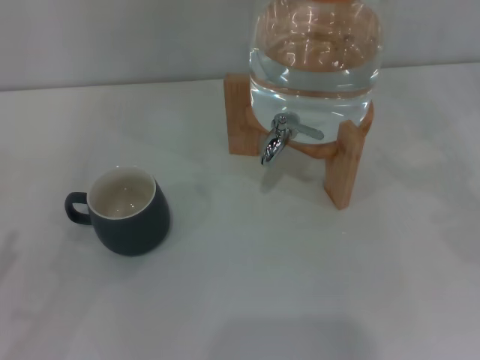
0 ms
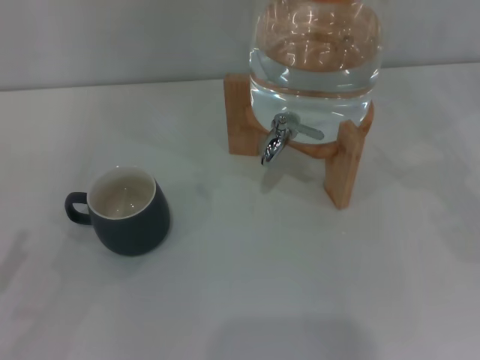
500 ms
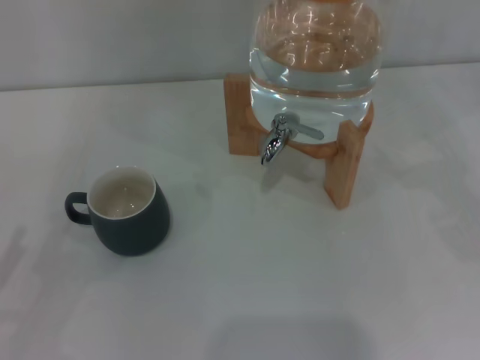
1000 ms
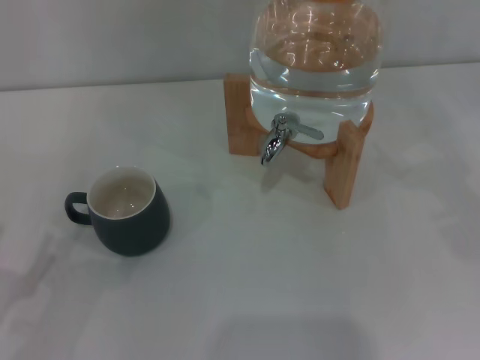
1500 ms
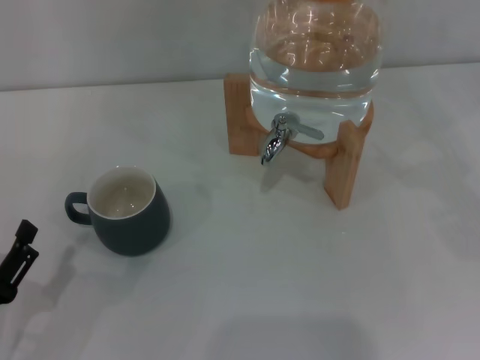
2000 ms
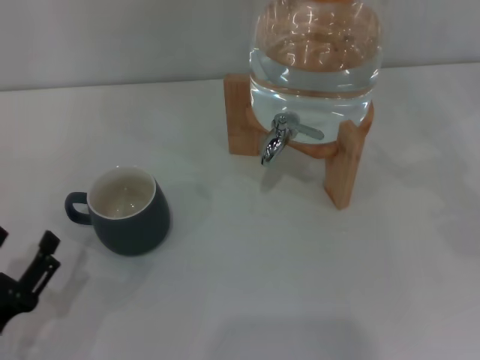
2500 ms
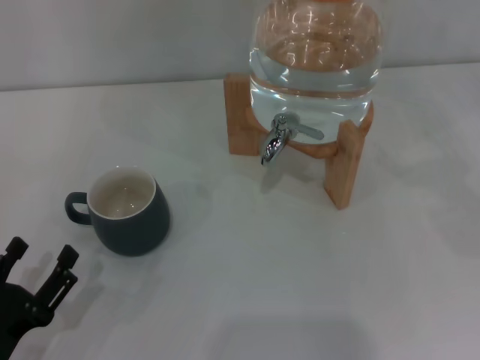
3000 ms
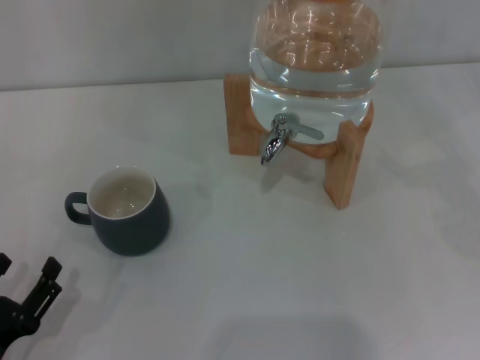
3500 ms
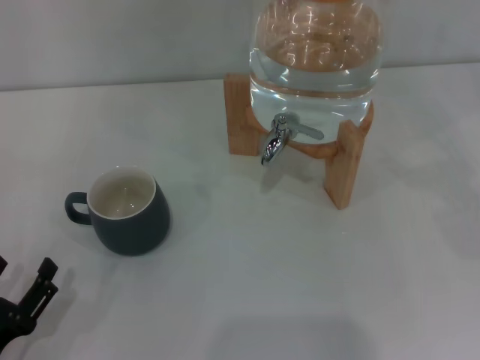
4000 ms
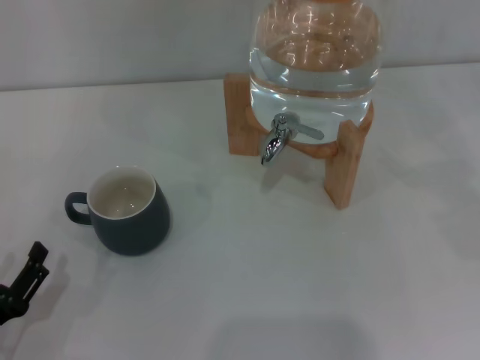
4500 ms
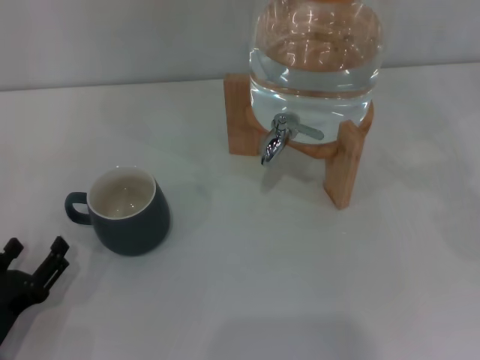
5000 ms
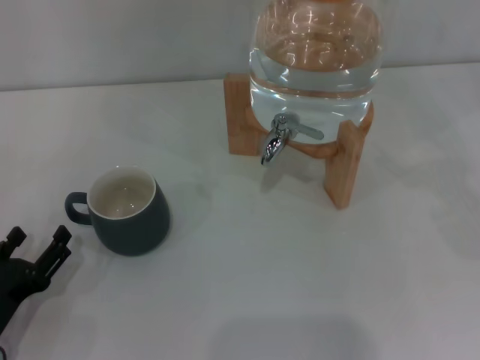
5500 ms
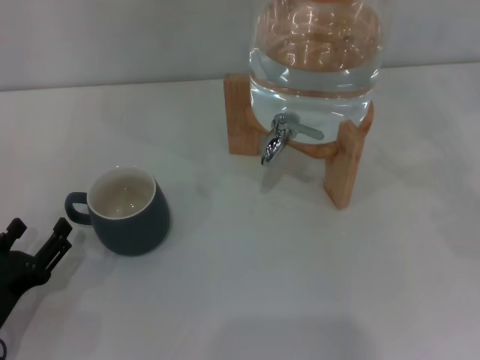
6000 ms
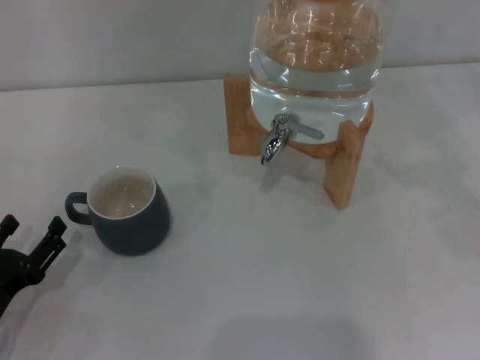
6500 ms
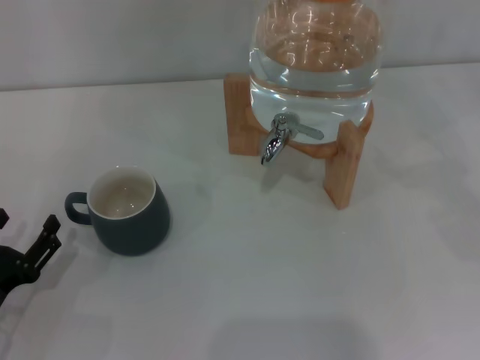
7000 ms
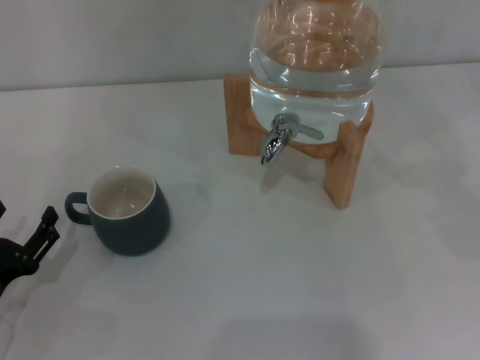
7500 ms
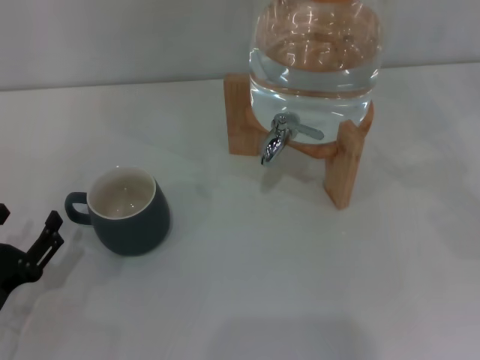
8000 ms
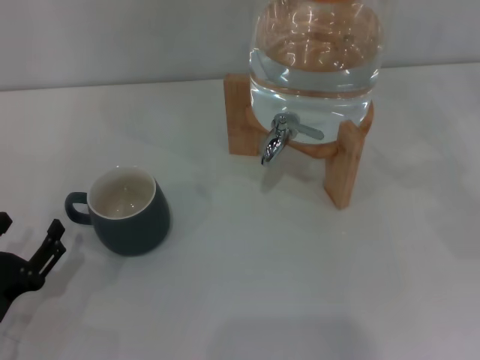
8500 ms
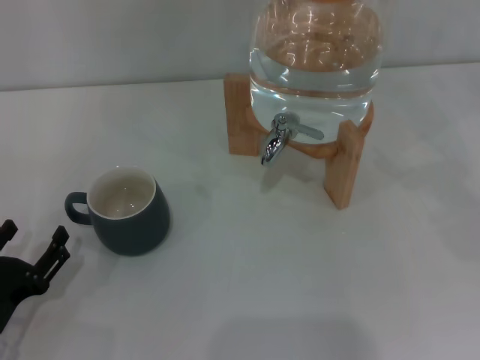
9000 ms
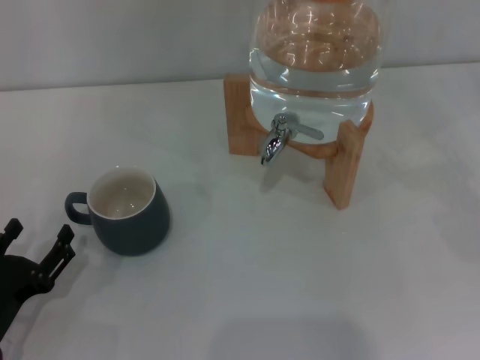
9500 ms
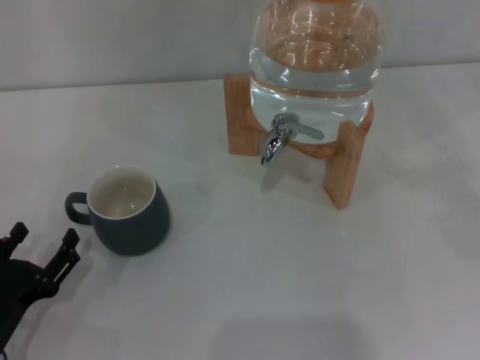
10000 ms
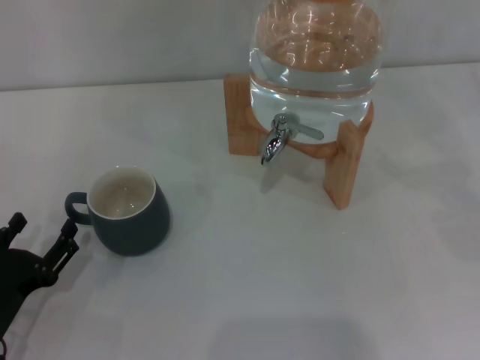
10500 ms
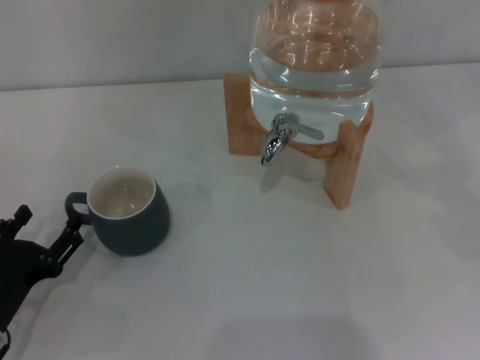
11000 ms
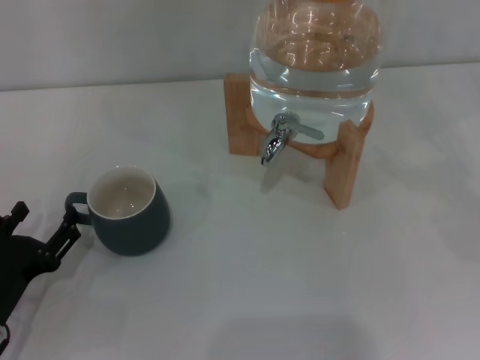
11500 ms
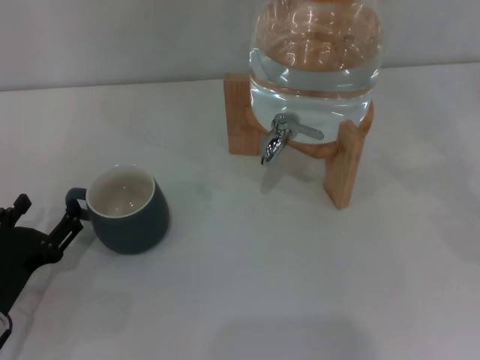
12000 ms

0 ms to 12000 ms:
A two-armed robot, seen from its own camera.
Task of the whole recording: the left gripper pick up the black cup and place it horizontally under the faucet, the right gripper turn on the faucet to fill the cup, and then turn off the faucet.
0 ms to 2000 ms: The left gripper shifts approximately 10 cm to the right and downward.
2000 ms to 4000 ms: The grippers make only small movements.
4000 ms to 6000 ms: The left gripper is displaced forward by some 5 cm.
6000 ms to 12000 ms: There are only small adjustments of the grippers.

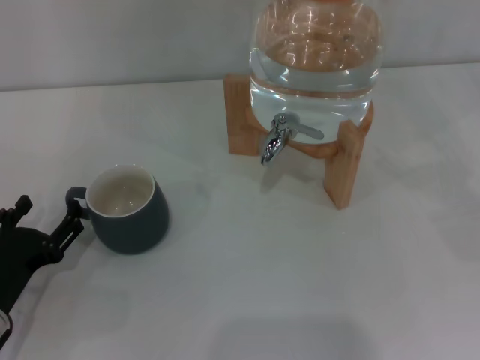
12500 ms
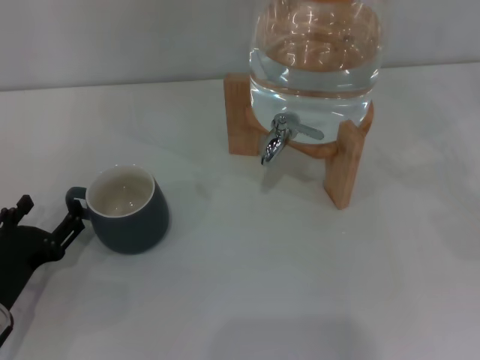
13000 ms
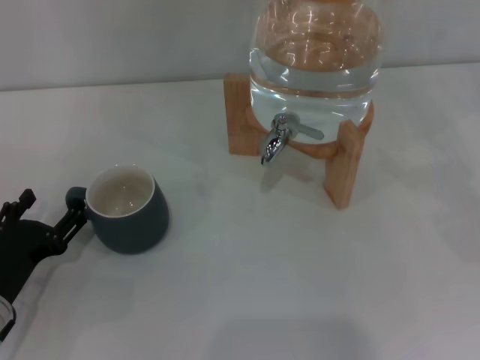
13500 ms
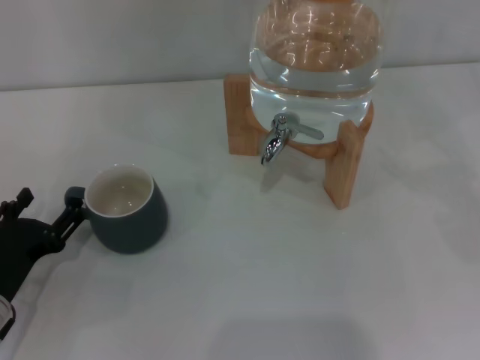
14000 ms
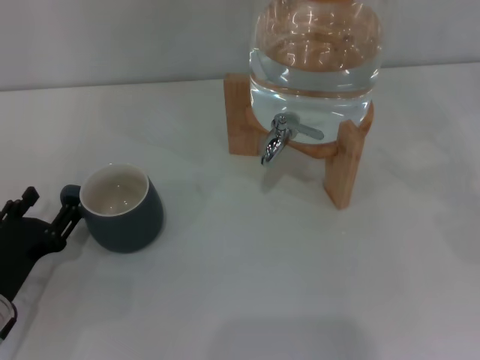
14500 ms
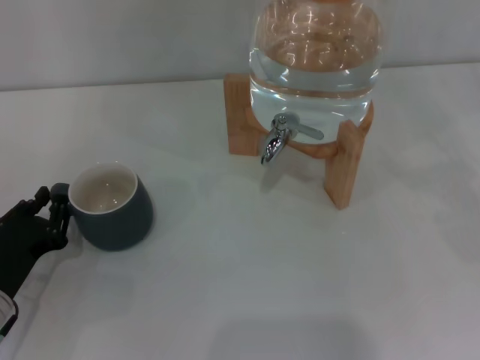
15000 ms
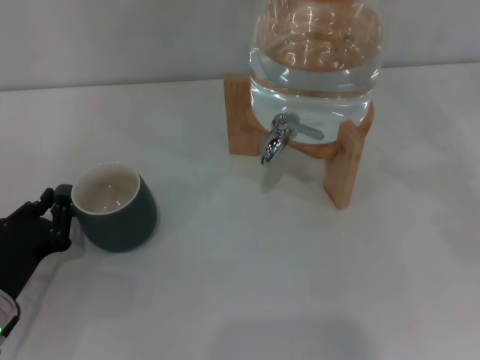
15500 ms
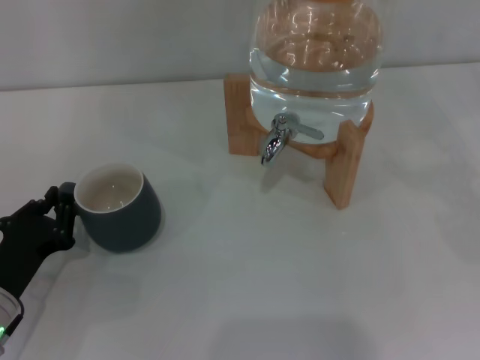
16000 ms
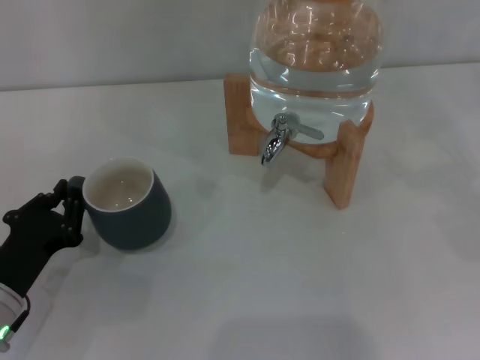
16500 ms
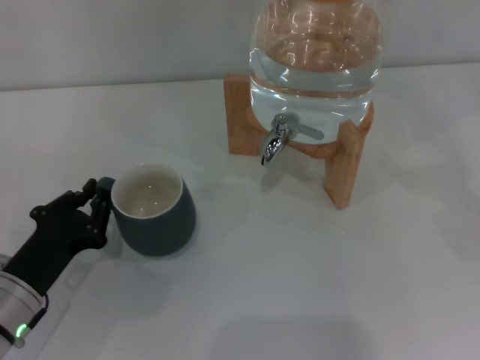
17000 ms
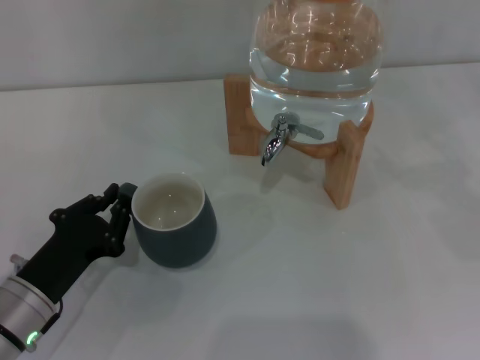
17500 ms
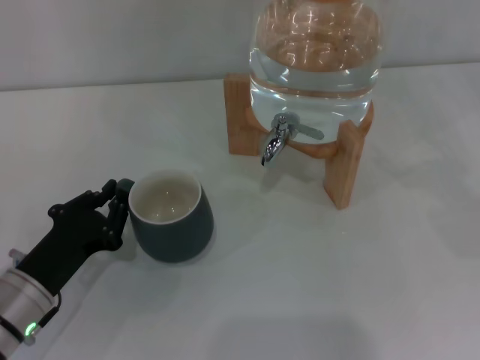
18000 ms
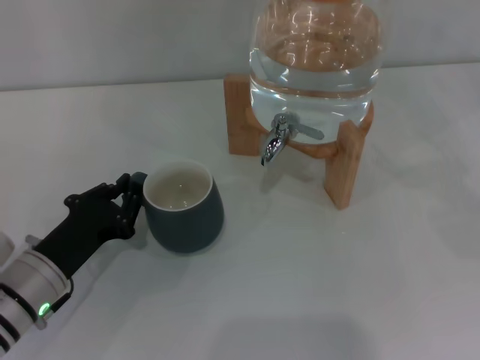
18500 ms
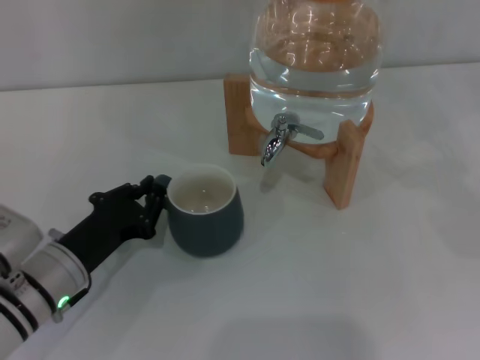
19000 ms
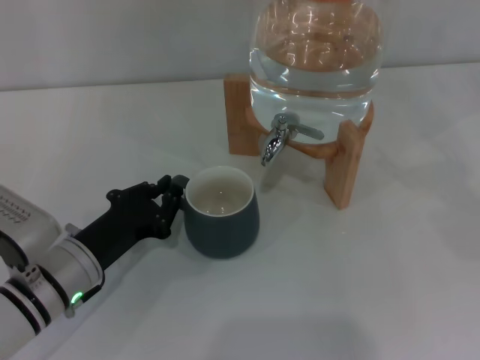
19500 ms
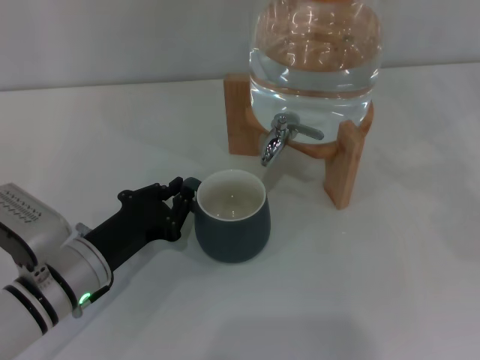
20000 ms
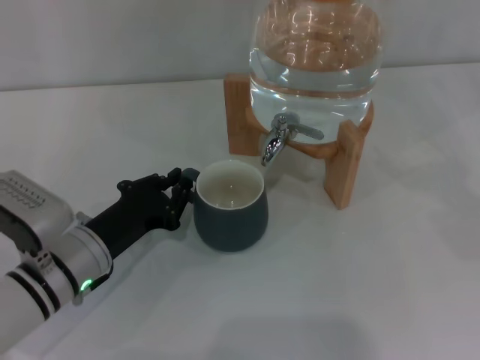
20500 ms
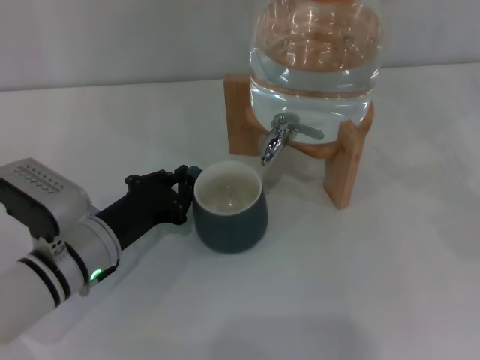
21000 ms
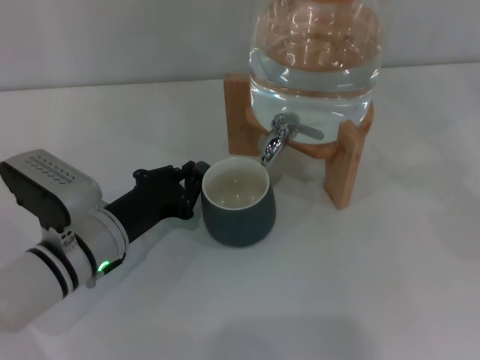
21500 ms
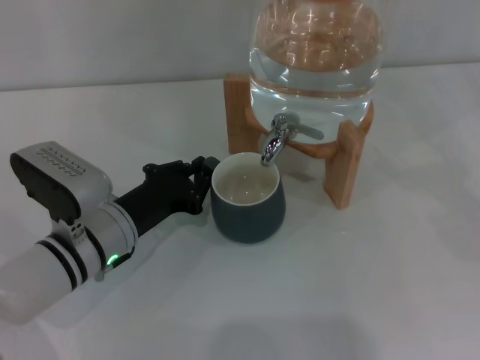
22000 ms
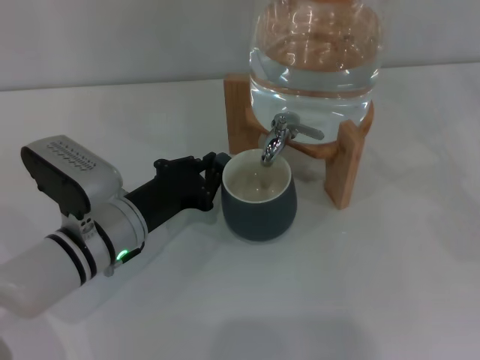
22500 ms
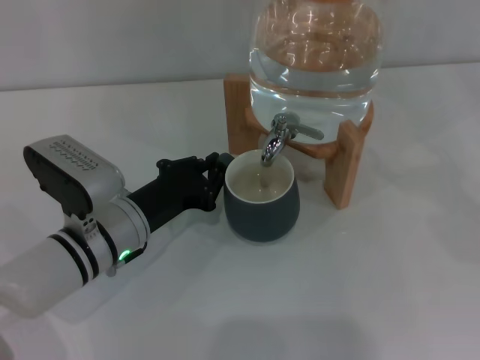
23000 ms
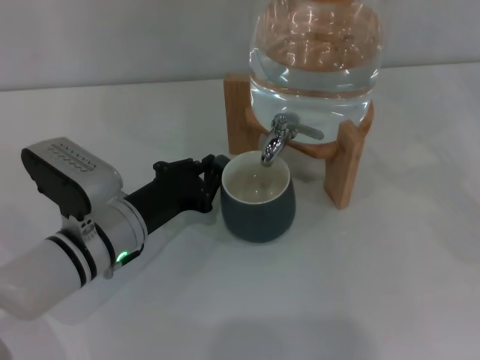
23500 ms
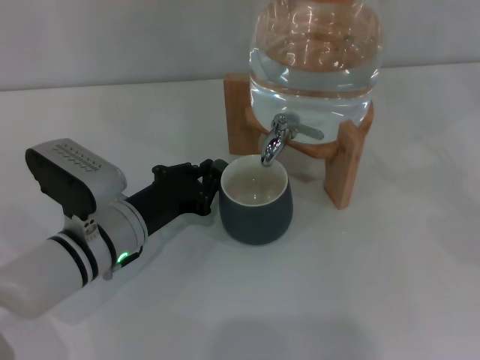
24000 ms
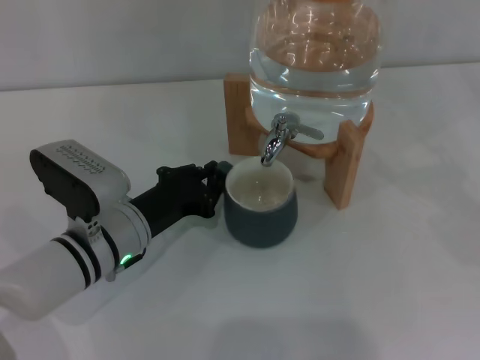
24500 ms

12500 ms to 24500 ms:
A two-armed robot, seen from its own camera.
Task of the whole recording: the left gripper pick up the black cup and place it horizontally under the faucet, the right gripper turn on the faucet to fill the cup, and then turn off the faucet.
12500 ms to 14500 ms: The two grippers keep their place.
14500 ms to 16500 ms: The left gripper closes its fingers.
16500 ms to 18500 ms: The grippers stay close to where they were, moving slightly.
18500 ms to 20500 ms: The grippers move only a little.
20500 ms to 22500 ms: The grippers move only a little.
22500 ms to 24500 ms: The two grippers keep their place.

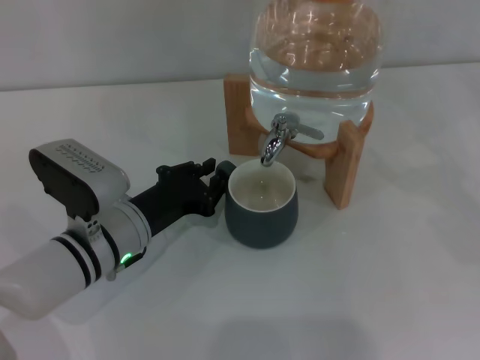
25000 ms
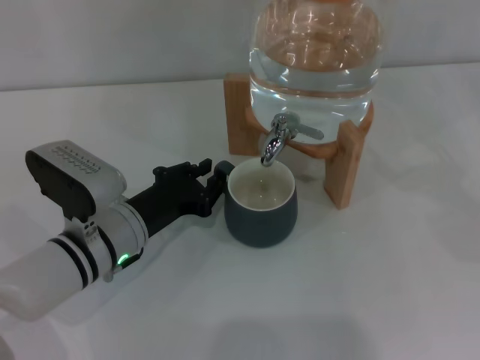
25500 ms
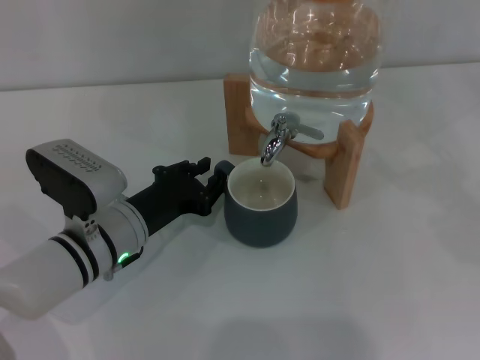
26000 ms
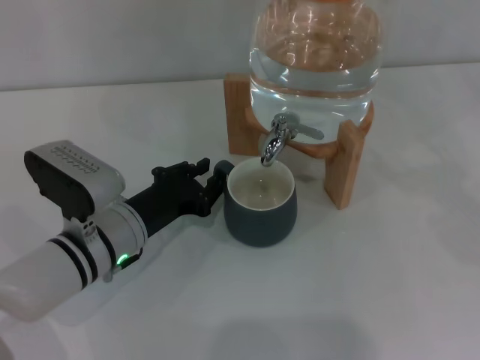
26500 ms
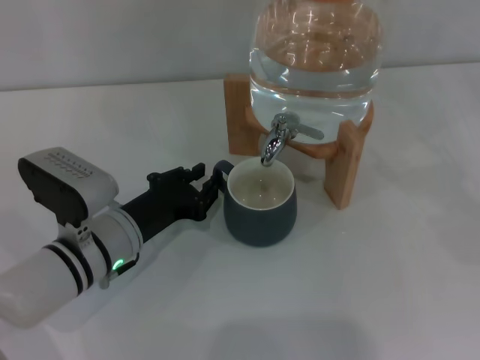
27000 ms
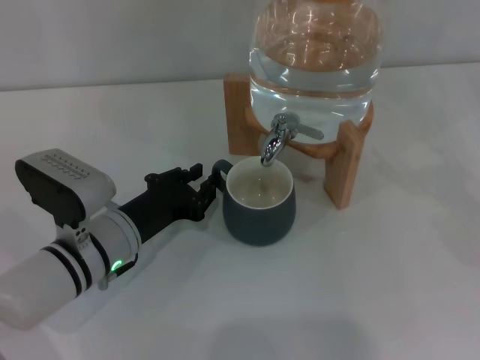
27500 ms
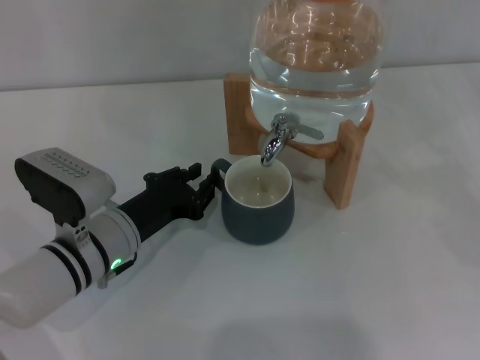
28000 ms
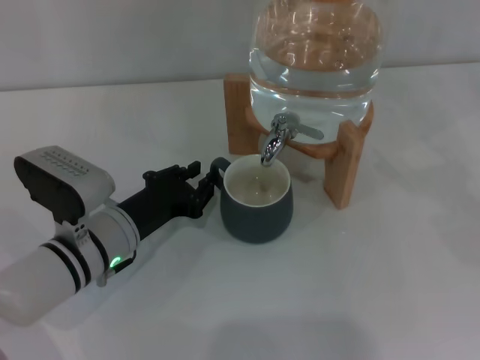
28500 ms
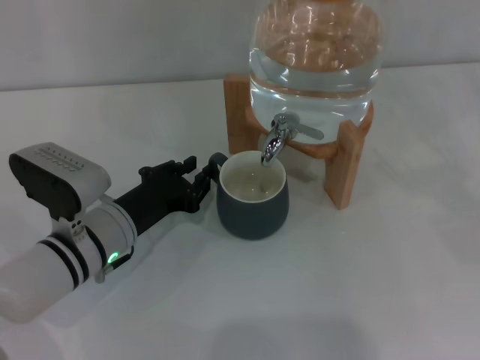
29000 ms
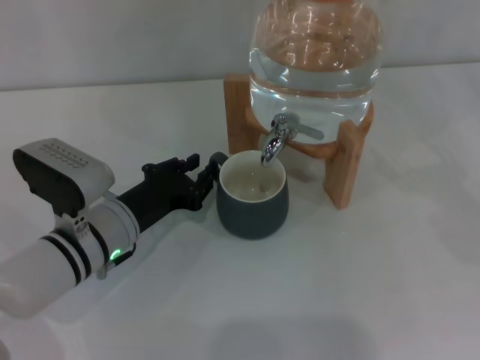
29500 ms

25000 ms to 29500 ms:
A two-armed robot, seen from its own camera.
Task of the whole recording: the left gripper pick up the black cup and place it horizontally under the faucet, the right gripper turn on the faucet to fill the cup, and then turn off the faucet.
25000 ms to 29500 ms: Neither gripper changes place.
